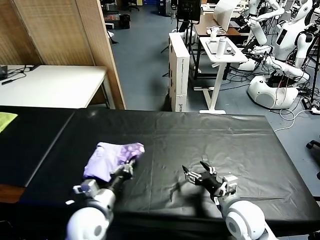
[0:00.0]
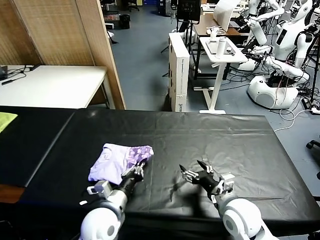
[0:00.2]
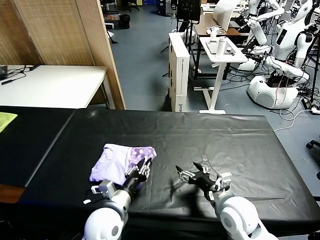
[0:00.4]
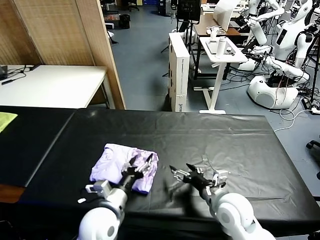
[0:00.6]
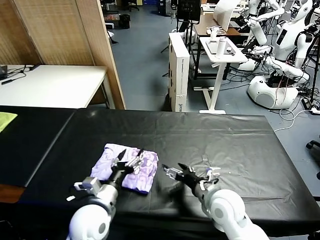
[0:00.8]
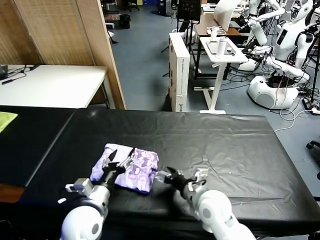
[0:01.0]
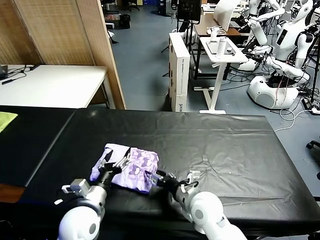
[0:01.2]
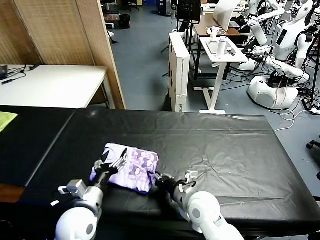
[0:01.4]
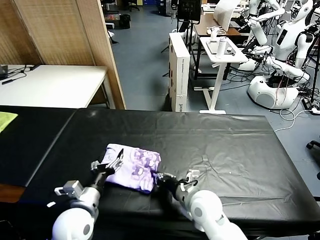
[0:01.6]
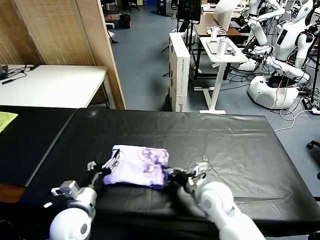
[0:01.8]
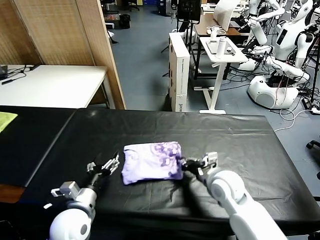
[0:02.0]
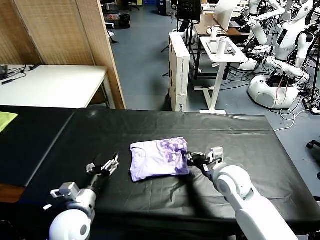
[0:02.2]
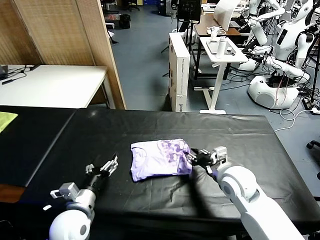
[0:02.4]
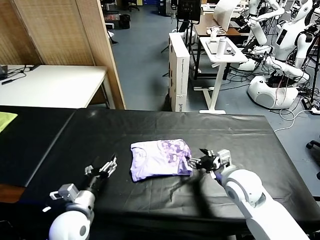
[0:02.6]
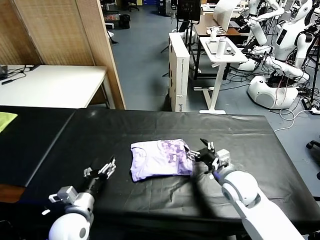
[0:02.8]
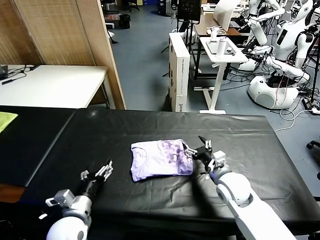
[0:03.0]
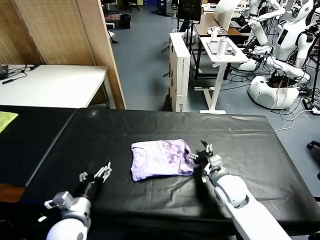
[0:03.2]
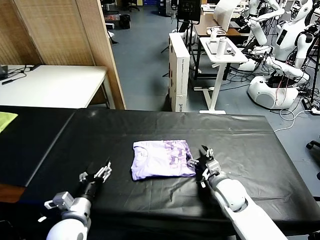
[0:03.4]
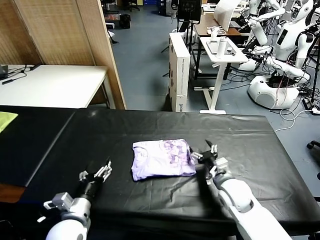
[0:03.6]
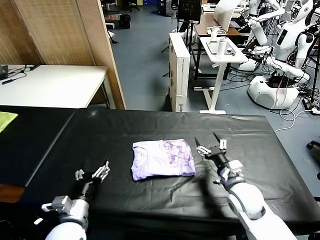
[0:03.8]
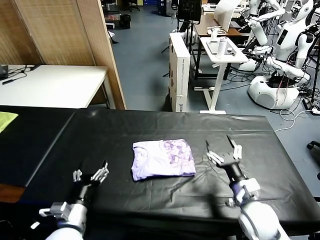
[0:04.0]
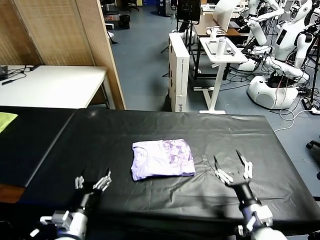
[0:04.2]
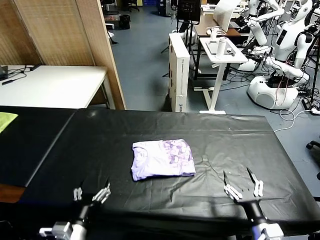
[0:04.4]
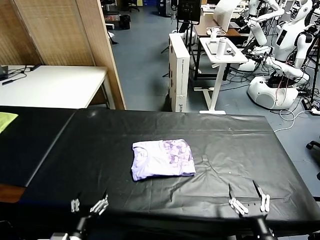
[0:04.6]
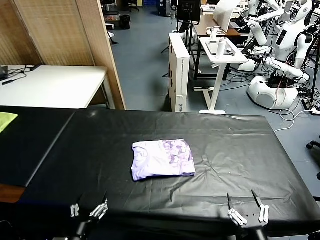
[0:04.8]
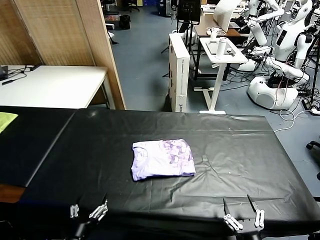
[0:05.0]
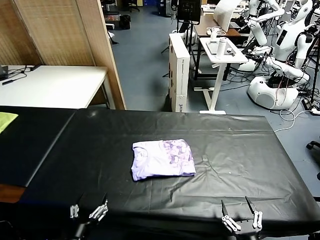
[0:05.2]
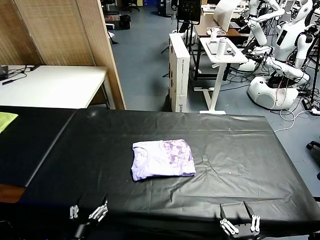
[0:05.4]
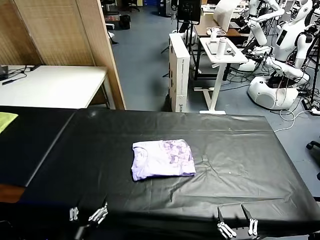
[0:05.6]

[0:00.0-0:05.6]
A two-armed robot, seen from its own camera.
Task of the whole recording: fold and organize the clothes.
Step, 0:00.8 to 0:02.4: Drag the clothes to the center of the table.
0:00.0 to 0:01.4: The right gripper is displaced to the left by approximately 10 cm, and closes up. The left gripper opens.
0:01.4 to 0:02.8: The right gripper shifts approximately 10 cm to the right, and opens up.
0:02.8 to 0:04.2: The left gripper heads backward, covering about 5 cm. The right gripper shifts approximately 15 cm backward and downward.
0:04.2 to 0:05.6: The right gripper moves backward, some 15 cm. Meanwhile the left gripper moves backward, about 10 cm.
